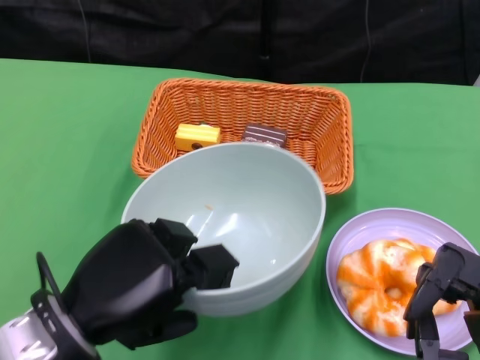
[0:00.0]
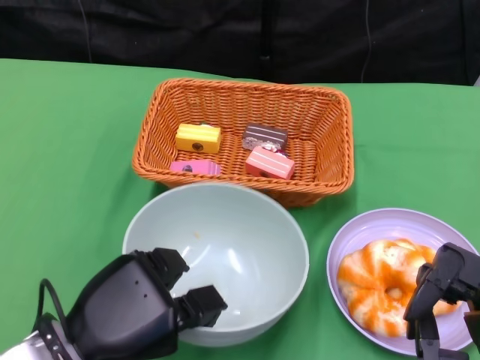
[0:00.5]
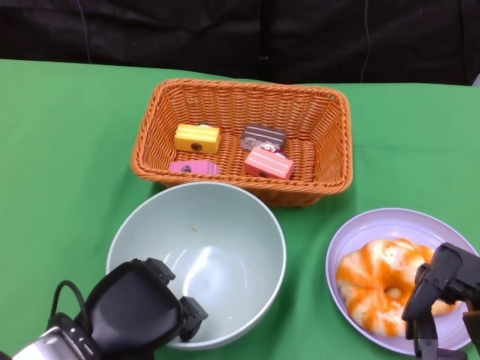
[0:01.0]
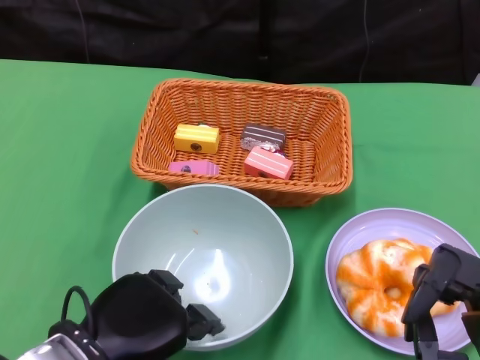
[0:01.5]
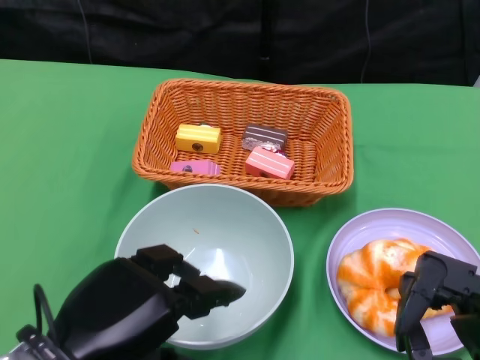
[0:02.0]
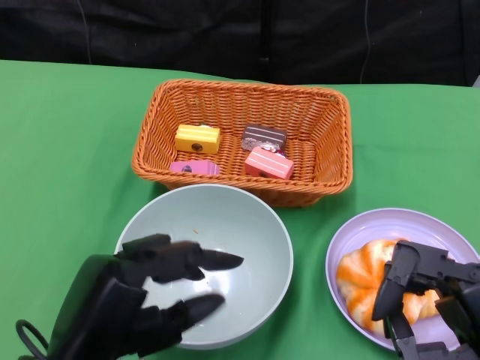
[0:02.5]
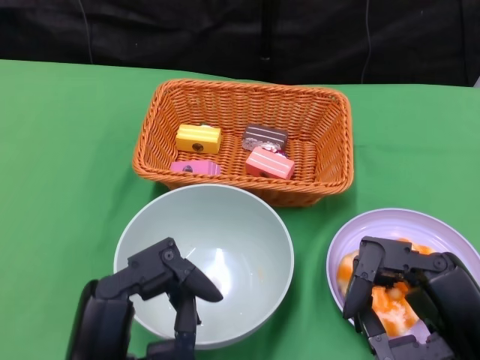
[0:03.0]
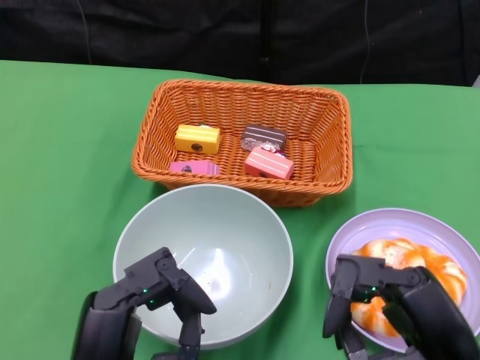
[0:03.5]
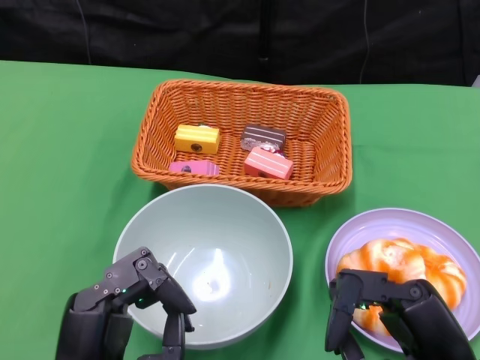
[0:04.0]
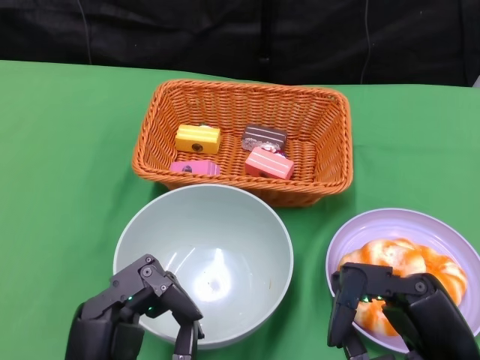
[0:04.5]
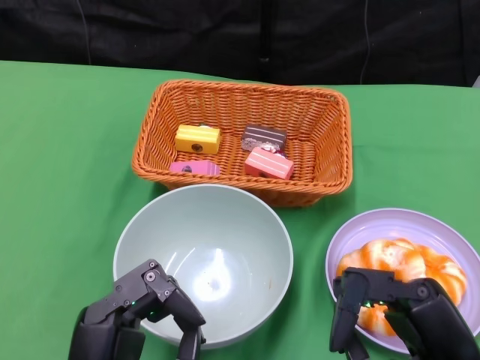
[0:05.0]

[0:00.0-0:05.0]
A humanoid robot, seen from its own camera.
0:02.5 to 0:05.0: The left hand moves approximately 5 cm.

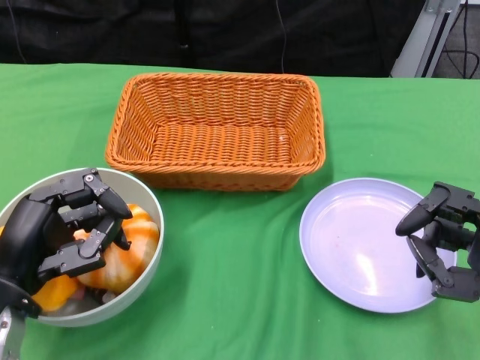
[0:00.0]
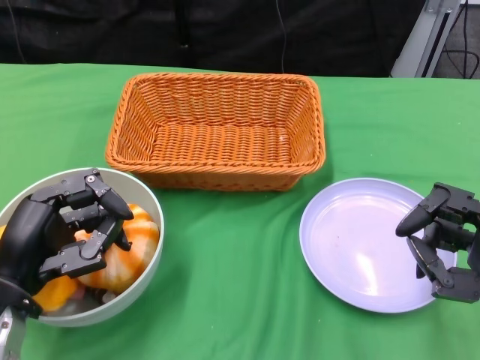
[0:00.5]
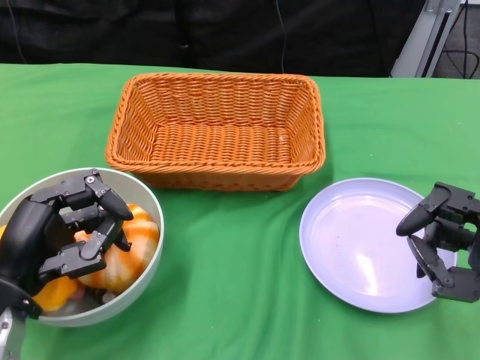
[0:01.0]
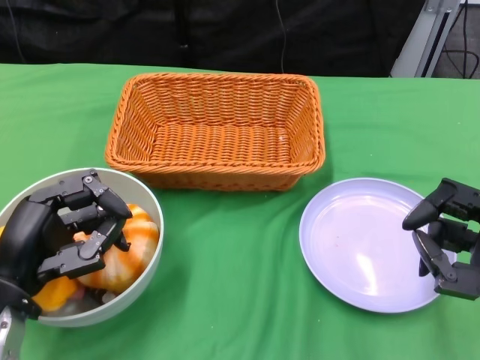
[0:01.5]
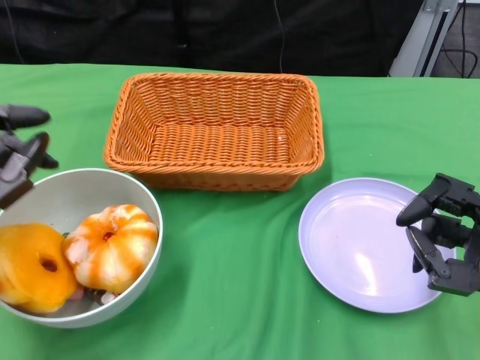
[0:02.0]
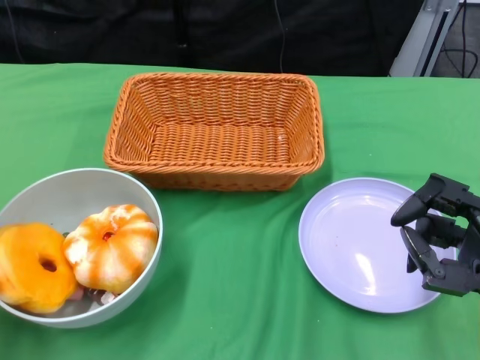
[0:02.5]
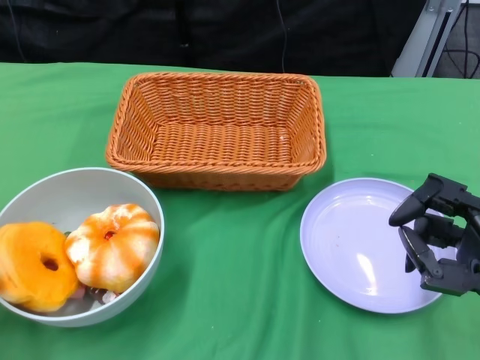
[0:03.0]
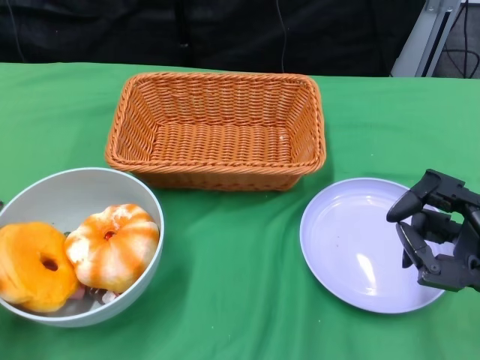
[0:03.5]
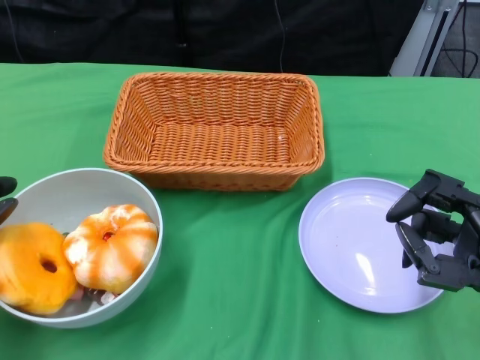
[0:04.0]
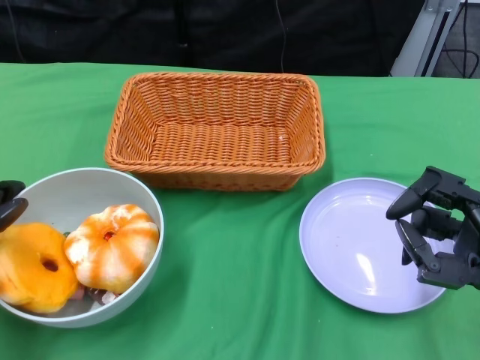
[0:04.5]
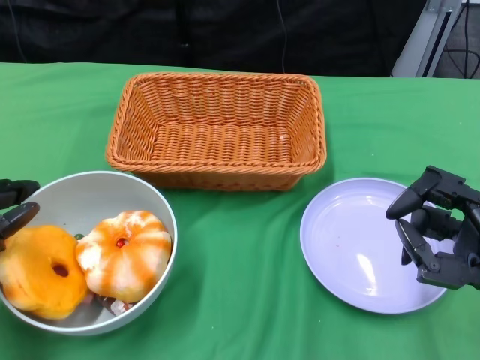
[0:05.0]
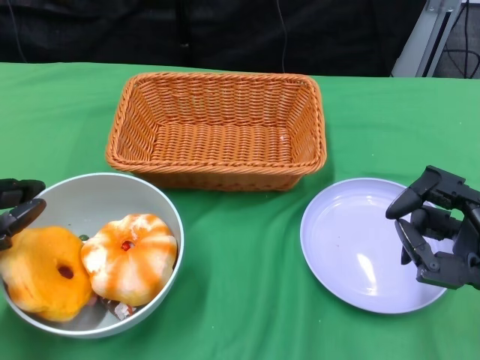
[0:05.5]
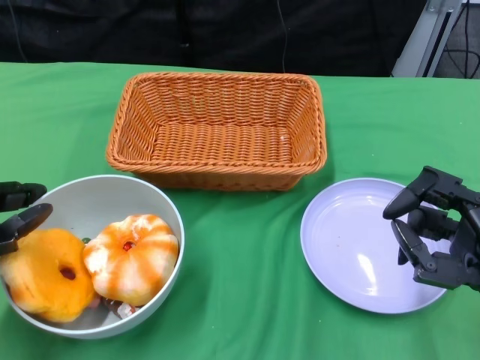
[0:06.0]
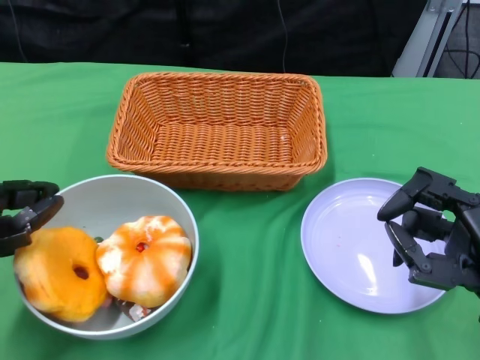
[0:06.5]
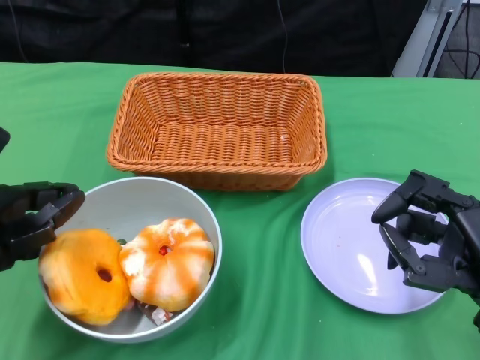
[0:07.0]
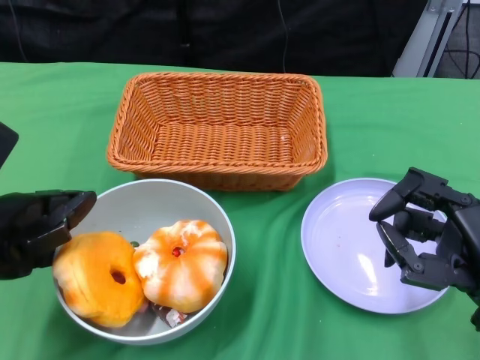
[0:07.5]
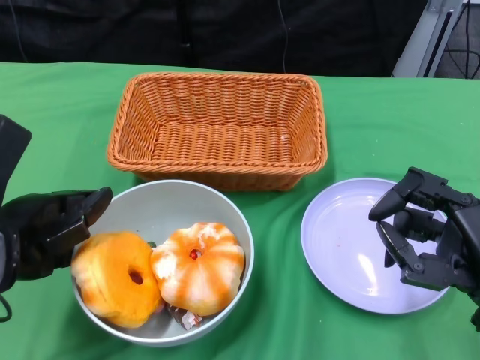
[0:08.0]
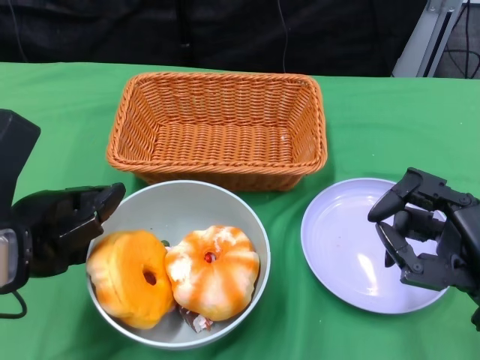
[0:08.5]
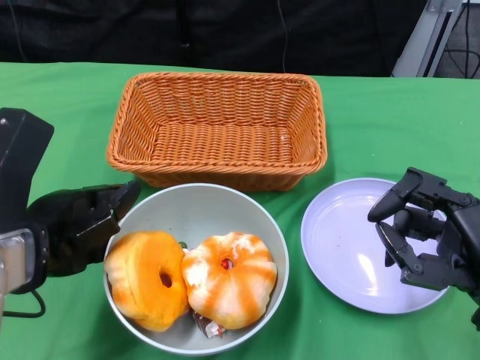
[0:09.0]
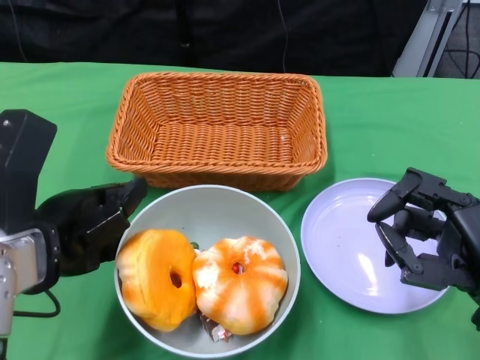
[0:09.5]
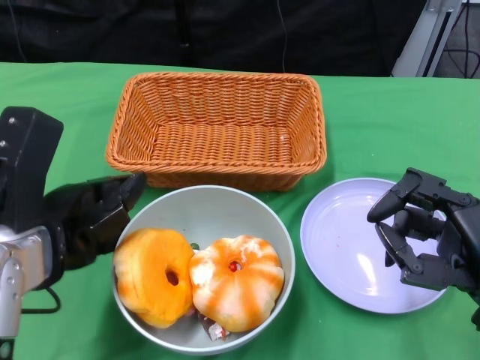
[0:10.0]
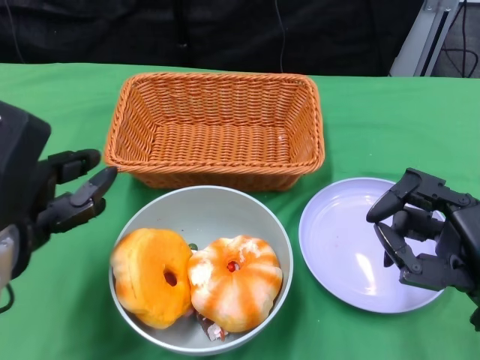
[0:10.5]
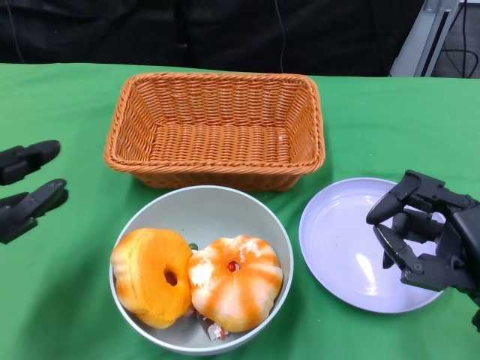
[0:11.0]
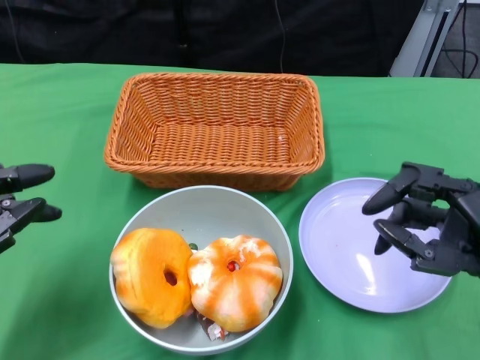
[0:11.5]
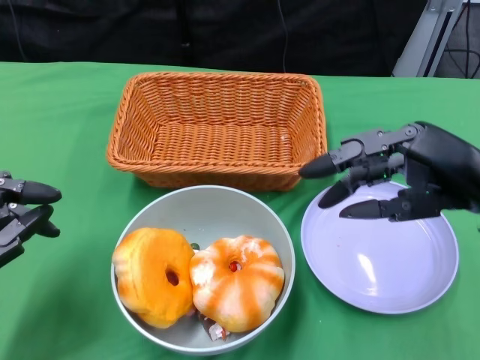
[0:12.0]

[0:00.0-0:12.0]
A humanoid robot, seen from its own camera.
Step, 0:00.0 to 0:10.5: Push the bowl to the center of the table using the left gripper.
0:02.0 to 0:04.0: The left hand heads to the left, covering about 5 cm.
0:04.0 to 0:06.0: The hands make only small movements.
0:06.0 to 0:08.0: The left hand heads to the right, covering roughly 5 cm.
0:10.0 to 0:12.0: The right hand moves forward and upward, roughly 10 cm. The left hand shifts approximately 10 cm to the left and downward.

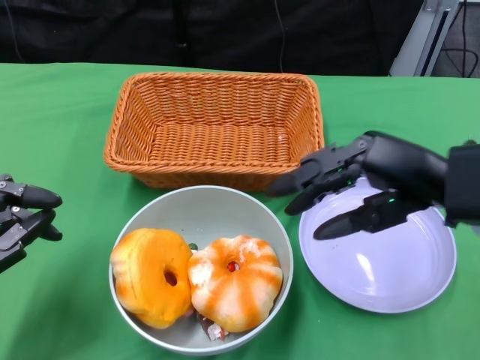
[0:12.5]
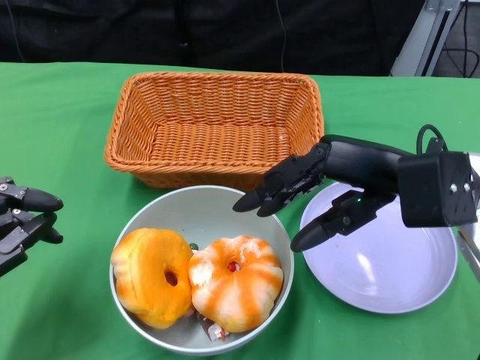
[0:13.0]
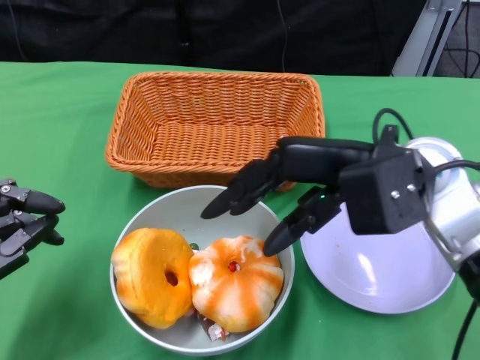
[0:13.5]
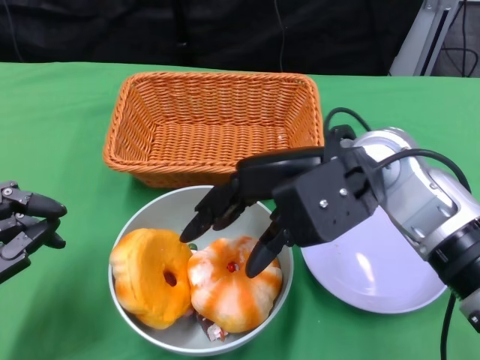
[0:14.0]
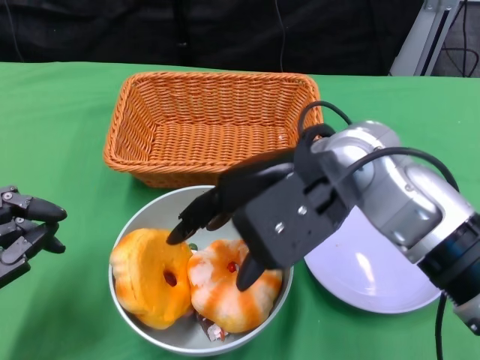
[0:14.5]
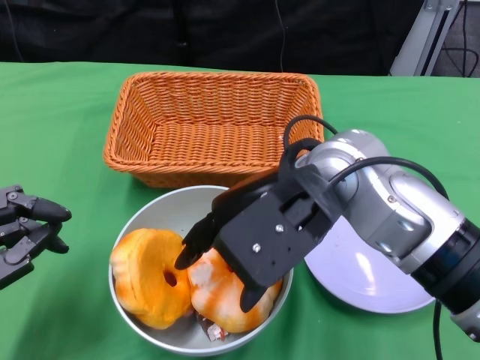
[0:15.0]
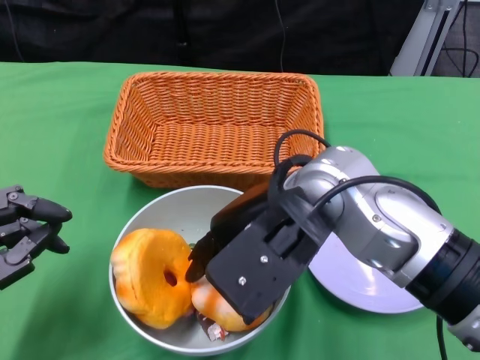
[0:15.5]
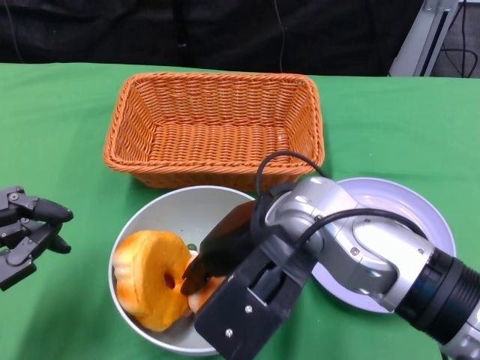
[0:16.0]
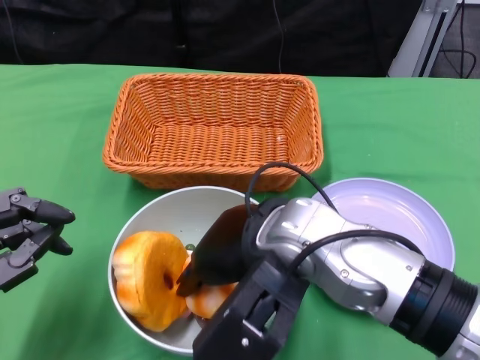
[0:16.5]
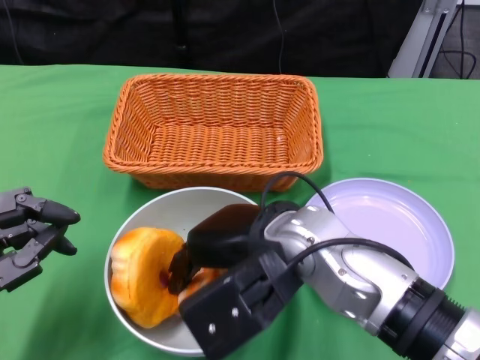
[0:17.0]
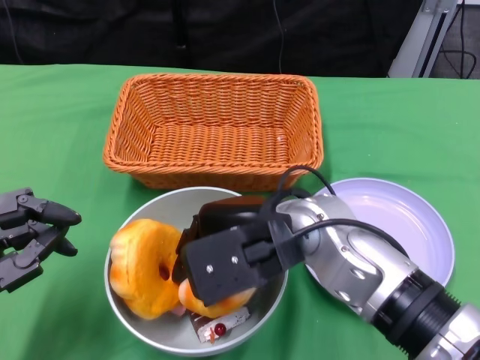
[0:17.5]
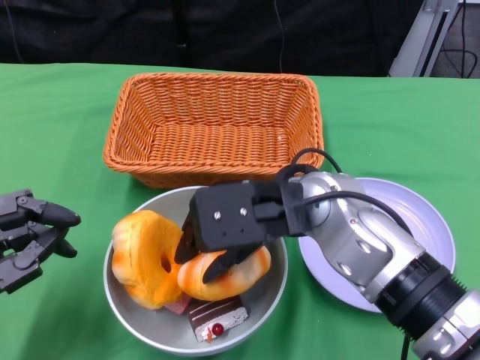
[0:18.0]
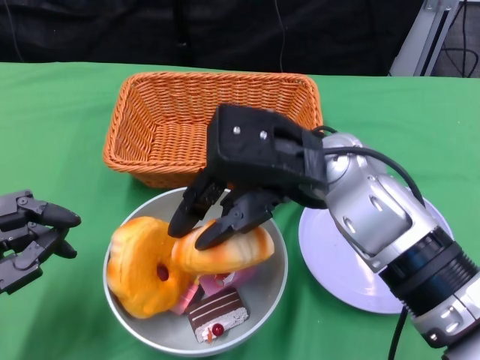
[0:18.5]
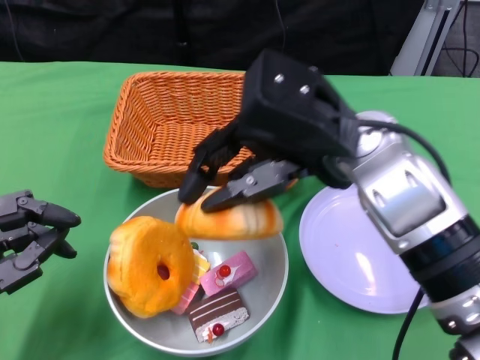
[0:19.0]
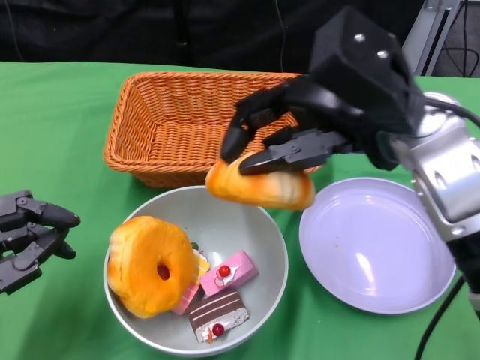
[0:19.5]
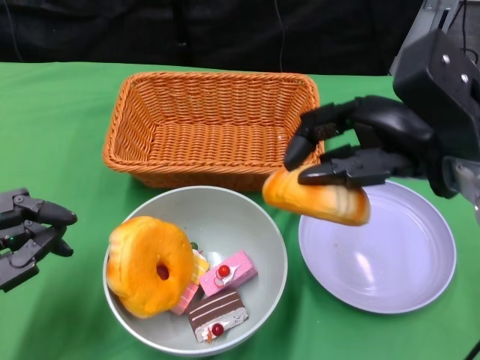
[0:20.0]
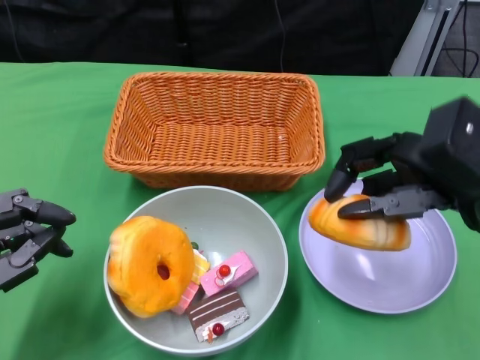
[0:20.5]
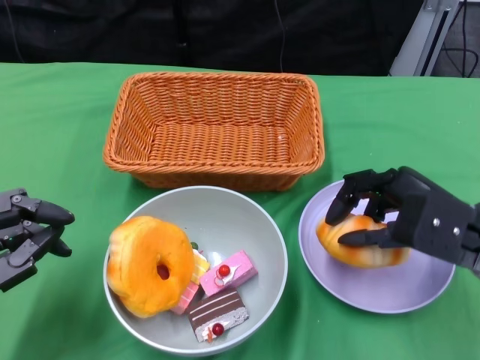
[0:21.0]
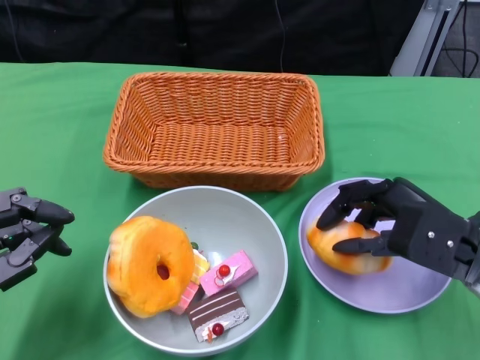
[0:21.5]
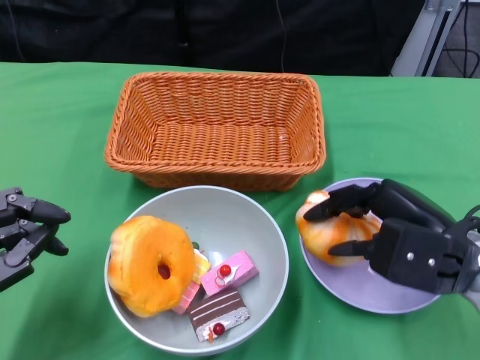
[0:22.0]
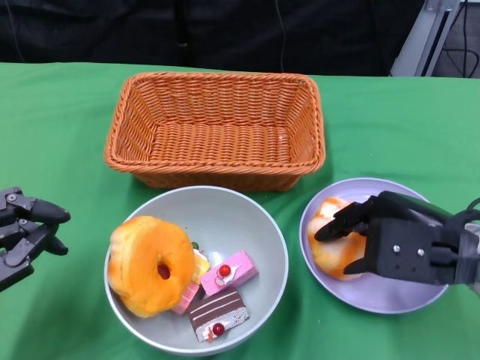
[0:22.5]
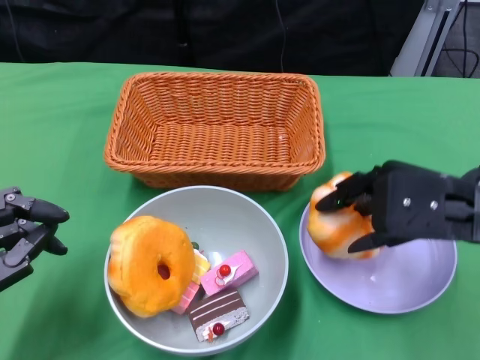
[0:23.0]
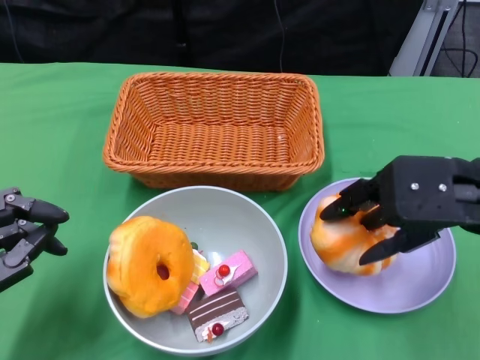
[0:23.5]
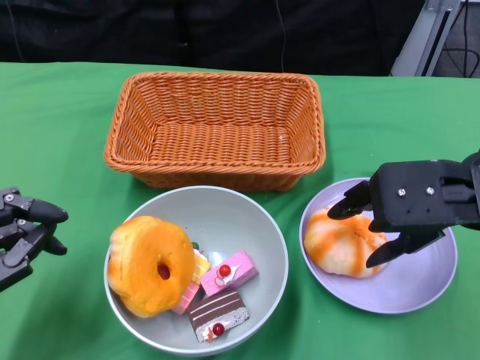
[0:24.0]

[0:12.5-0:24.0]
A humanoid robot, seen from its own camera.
0:12.5 to 0:14.5: The right hand moves to the left, approximately 15 cm.
0:14.5 to 0:16.5: The right hand shifts by roughly 10 cm.
0:16.5 to 0:18.5: The right hand shifts roughly 5 cm forward.
0:18.5 to 0:20.0: The right hand shifts roughly 10 cm to the right.
0:20.0 to 0:22.0: The right hand goes about 10 cm downward.
0:22.0 to 0:24.0: The right hand goes approximately 10 cm upward.
